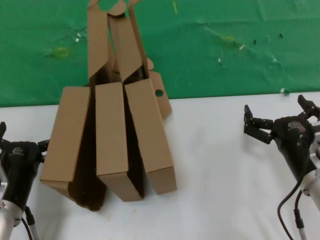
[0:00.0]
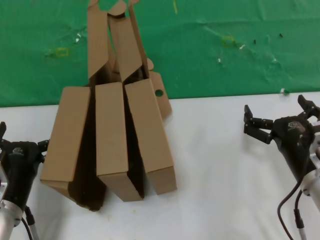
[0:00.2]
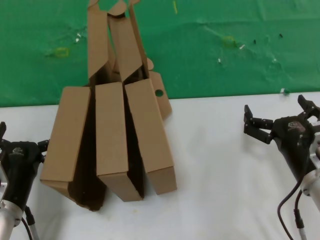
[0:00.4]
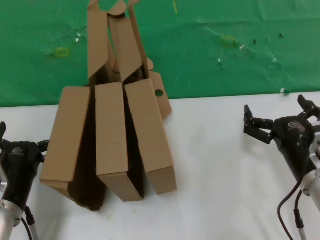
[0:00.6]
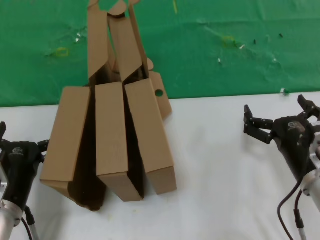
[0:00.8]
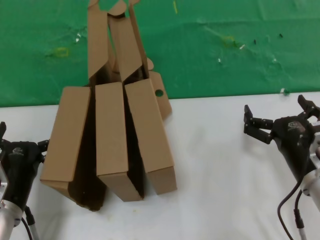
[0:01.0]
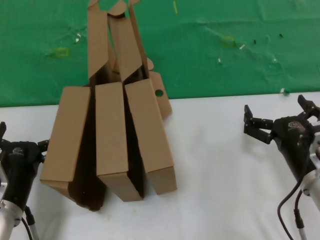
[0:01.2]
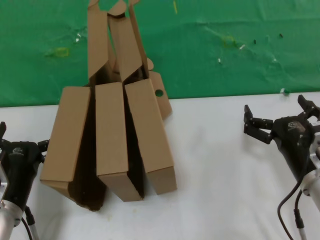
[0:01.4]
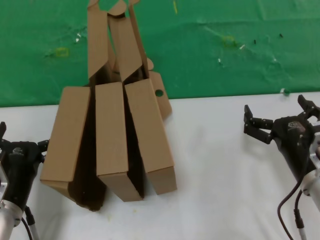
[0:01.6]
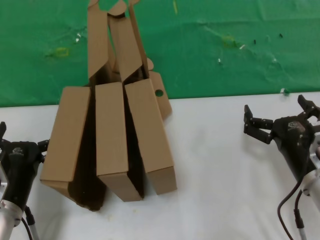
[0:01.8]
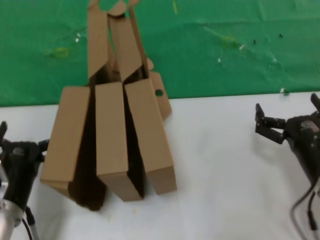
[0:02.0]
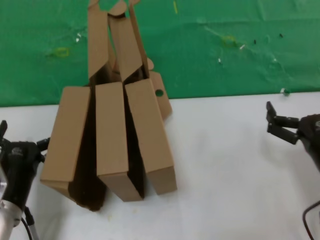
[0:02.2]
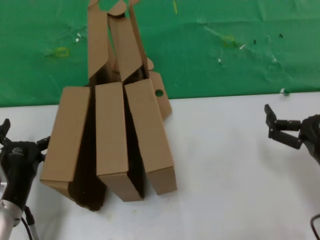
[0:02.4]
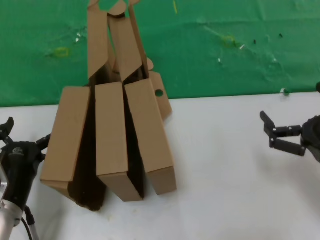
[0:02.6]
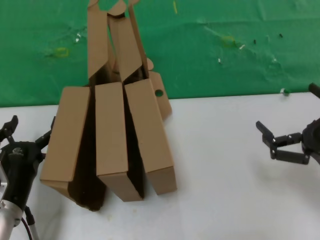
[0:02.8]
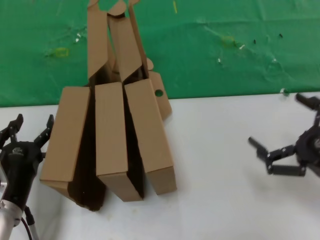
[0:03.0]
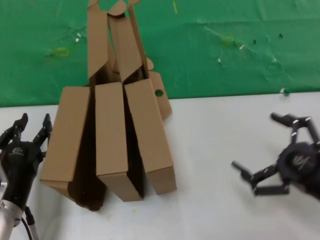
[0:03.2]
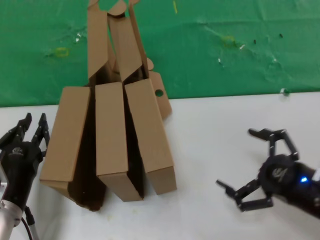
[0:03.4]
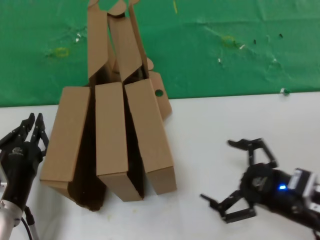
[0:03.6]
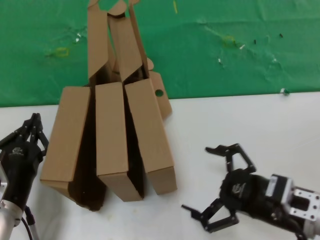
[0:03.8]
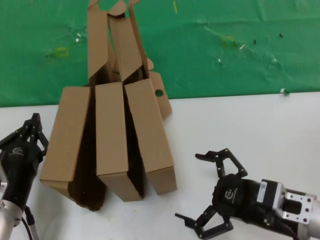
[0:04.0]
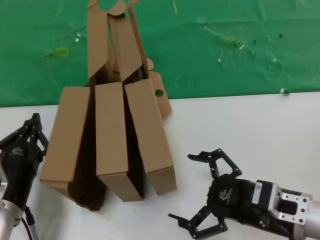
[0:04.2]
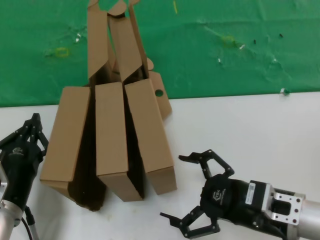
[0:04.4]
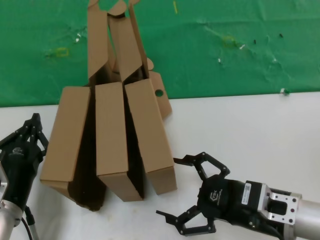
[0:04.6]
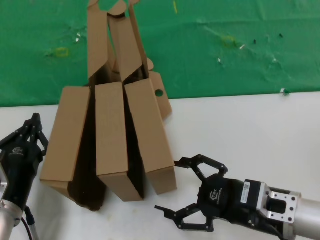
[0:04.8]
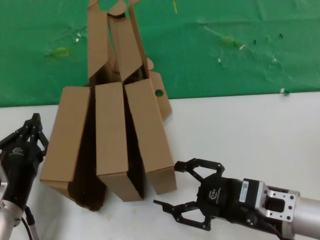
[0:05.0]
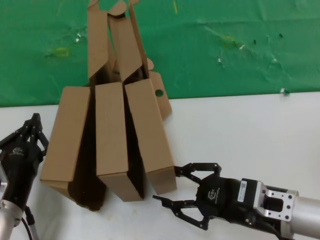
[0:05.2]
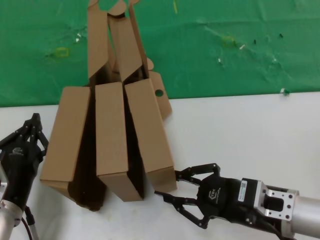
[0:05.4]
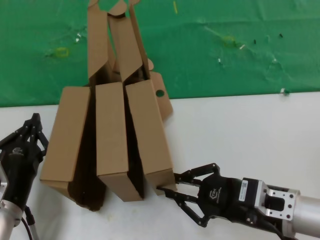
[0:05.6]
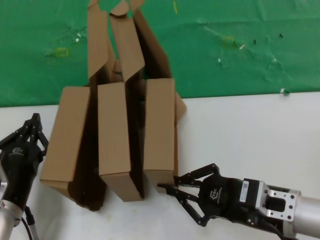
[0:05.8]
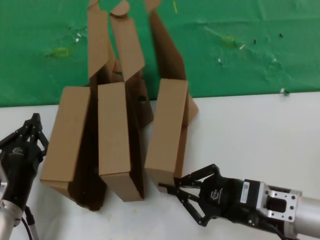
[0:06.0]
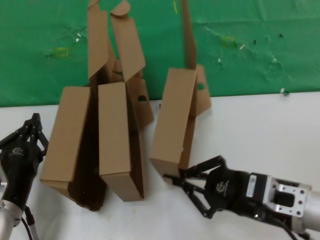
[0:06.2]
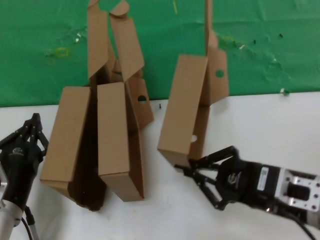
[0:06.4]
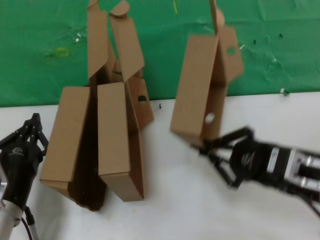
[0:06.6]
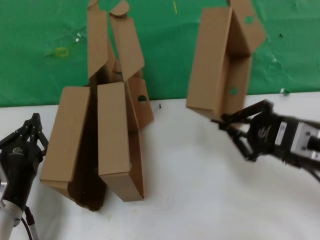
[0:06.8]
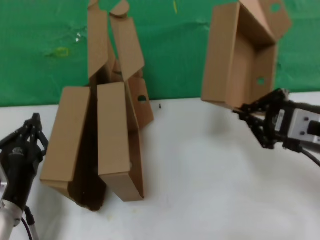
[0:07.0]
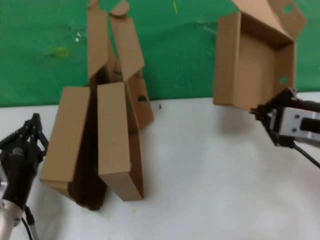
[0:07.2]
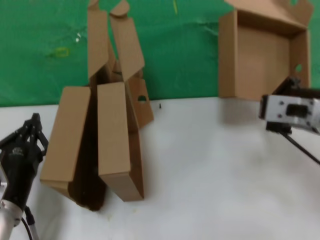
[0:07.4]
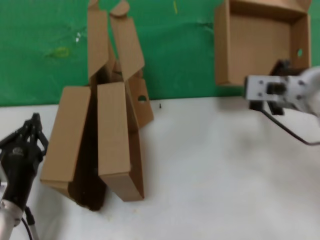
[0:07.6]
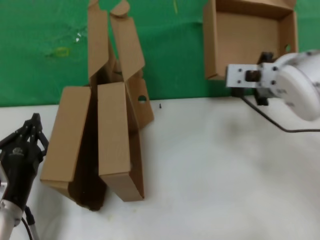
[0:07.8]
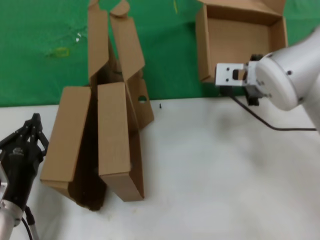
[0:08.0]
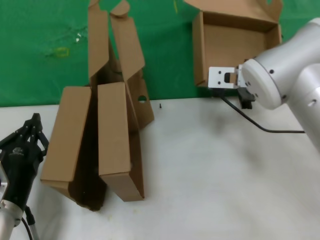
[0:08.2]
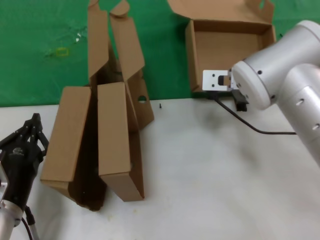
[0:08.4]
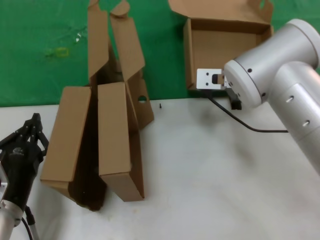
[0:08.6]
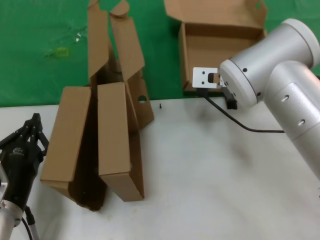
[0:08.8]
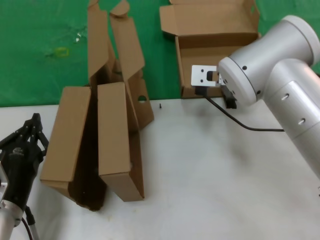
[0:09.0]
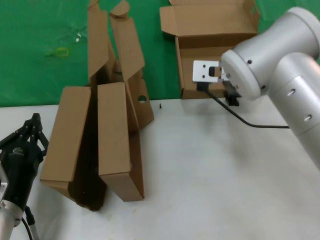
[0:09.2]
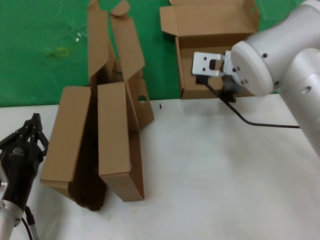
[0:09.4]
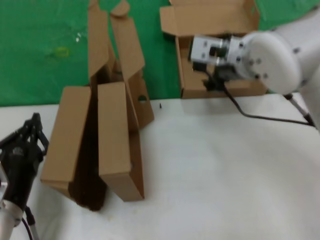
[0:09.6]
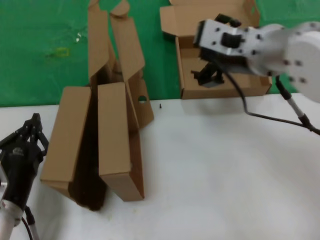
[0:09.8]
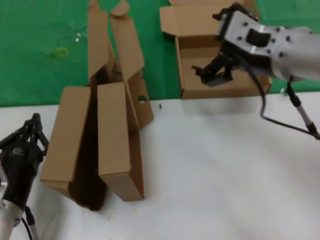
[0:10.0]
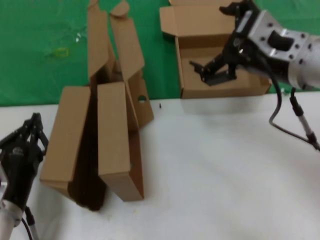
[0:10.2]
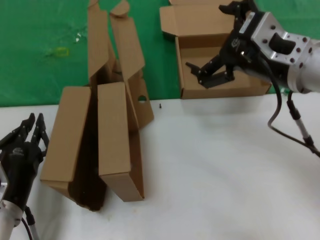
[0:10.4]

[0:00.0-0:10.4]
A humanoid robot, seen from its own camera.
Task of the whole recording: pick up the paper box and put it at the back.
Step, 0:00.0 to 0:05.8: Grasp the paper box.
Step, 0:06.0 to 0:09.2: Place the paper box on the table.
0:00.0 to 0:01.4: Both hands stay put.
0:01.4 to 0:03.0: The right hand travels to the right, backward and upward by about 15 cm.
0:03.0 to 0:04.4: The right hand goes about 10 cm to the left.
0:04.4 to 0:06.0: The two hands keep their place.
0:06.0 to 0:07.4: The right hand heads upward, covering some 15 cm.
0:07.4 to 0:09.0: The right hand shifts some 20 cm forward and to the left.
0:09.0 to 0:10.4: The right hand goes some 15 cm backward and to the right.

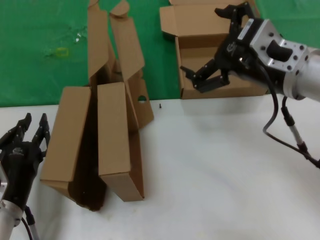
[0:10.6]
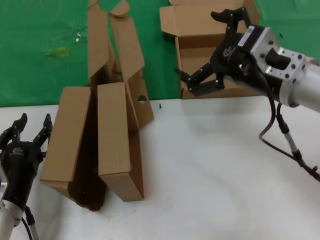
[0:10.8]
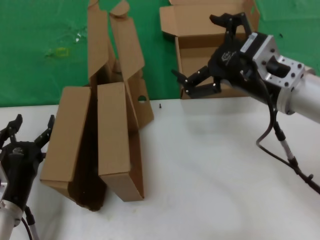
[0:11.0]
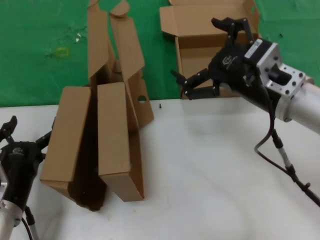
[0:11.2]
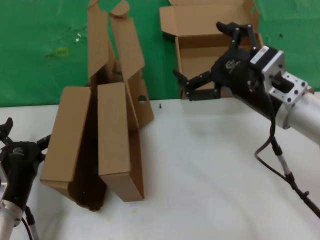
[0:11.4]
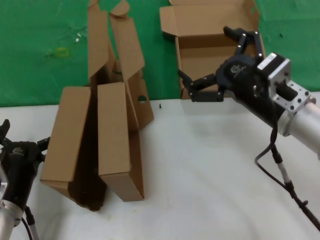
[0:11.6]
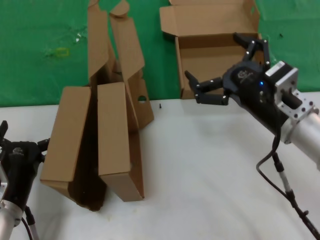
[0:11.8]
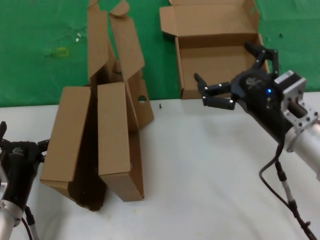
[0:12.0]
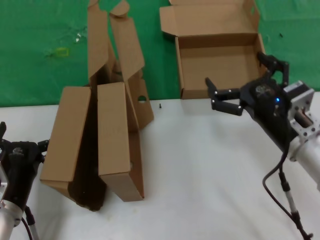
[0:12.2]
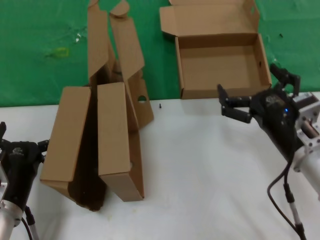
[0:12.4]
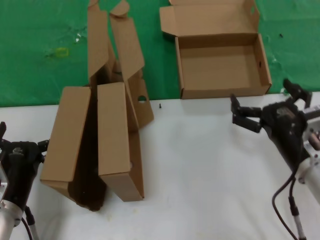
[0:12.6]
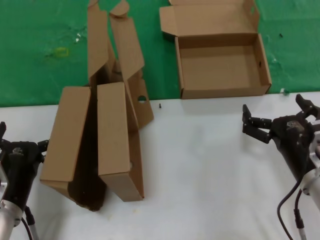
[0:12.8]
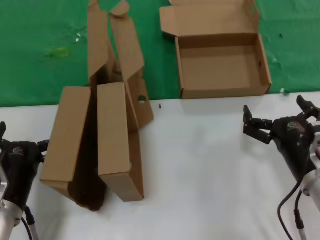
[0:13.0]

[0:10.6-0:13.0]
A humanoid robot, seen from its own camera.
Task of the whole recording: pick up the paper box and put it at the back.
0:10.6 to 0:11.8: The right hand is displaced downward by about 10 cm.
0:11.8 to 0:13.0: The right hand travels downward by some 10 cm.
